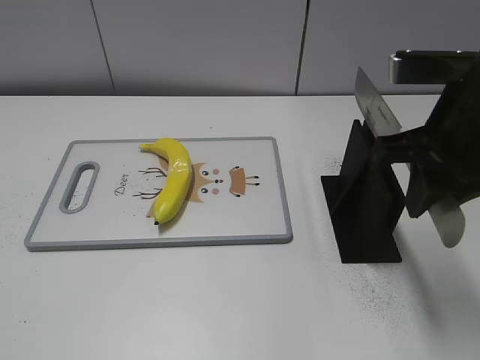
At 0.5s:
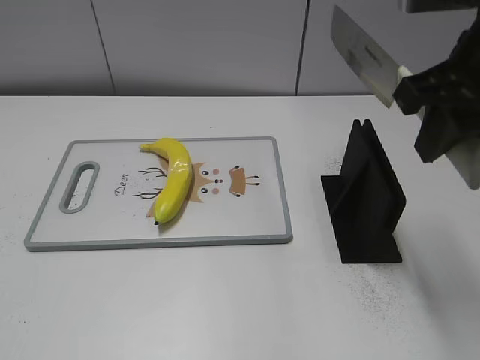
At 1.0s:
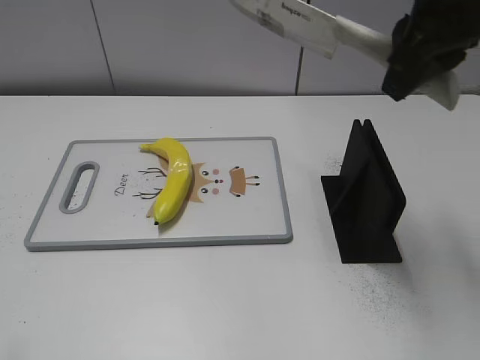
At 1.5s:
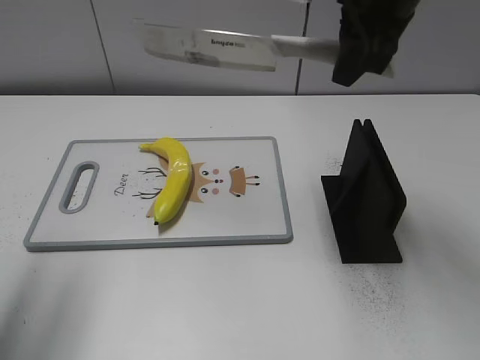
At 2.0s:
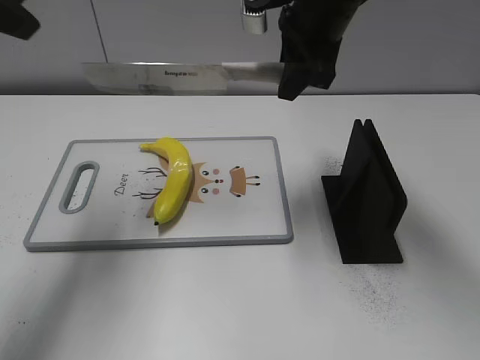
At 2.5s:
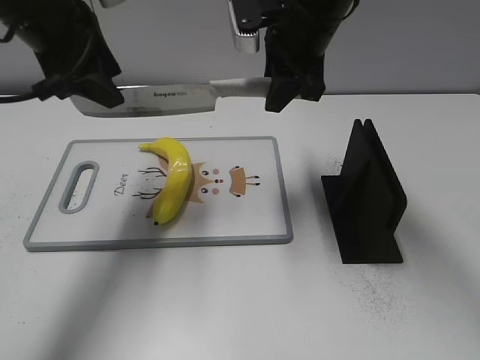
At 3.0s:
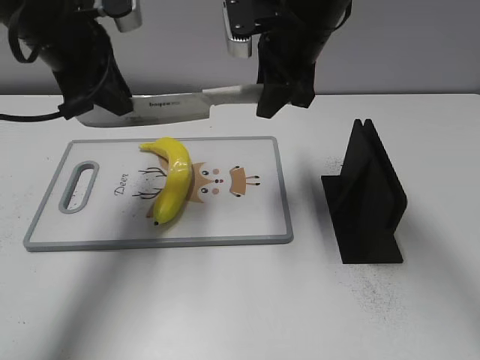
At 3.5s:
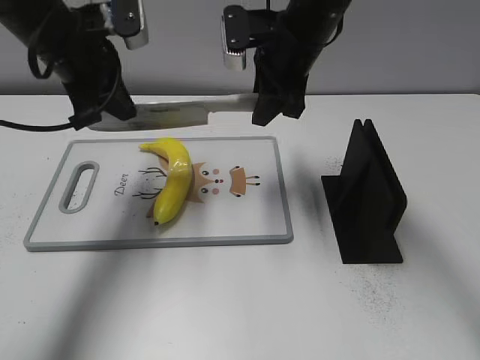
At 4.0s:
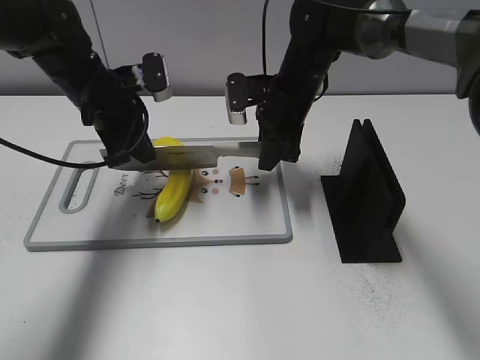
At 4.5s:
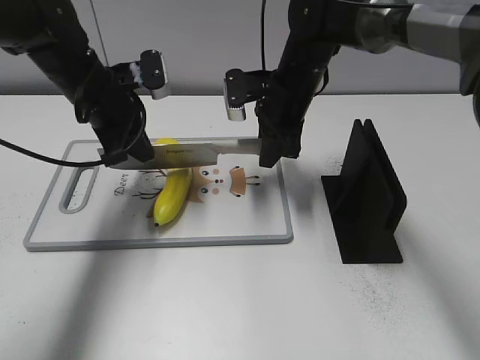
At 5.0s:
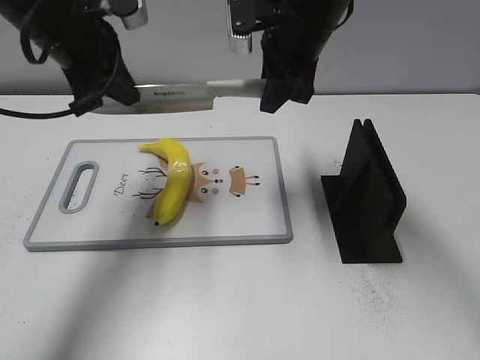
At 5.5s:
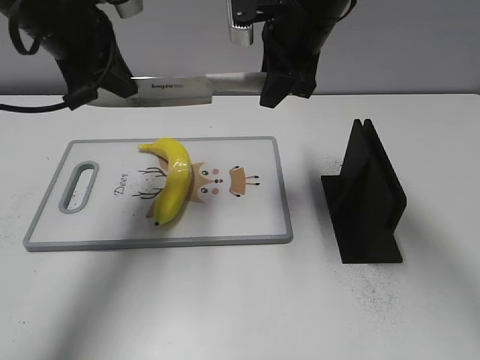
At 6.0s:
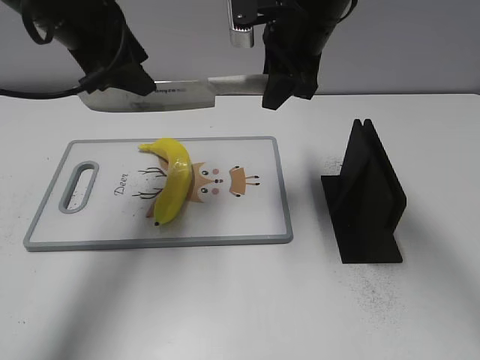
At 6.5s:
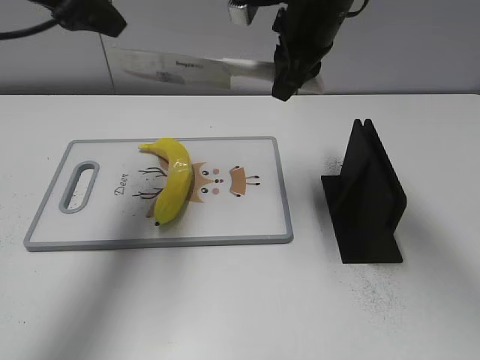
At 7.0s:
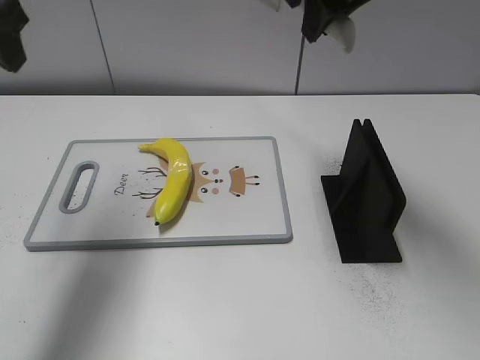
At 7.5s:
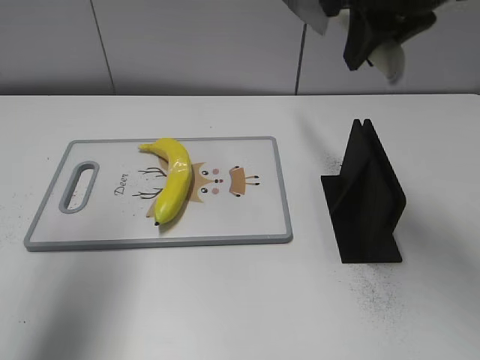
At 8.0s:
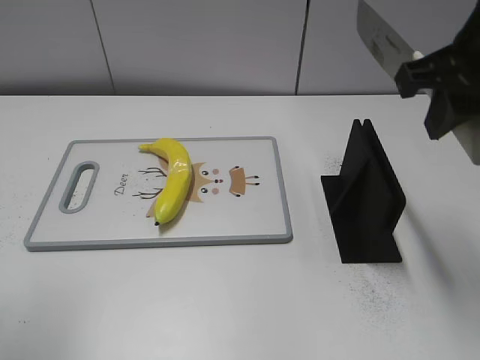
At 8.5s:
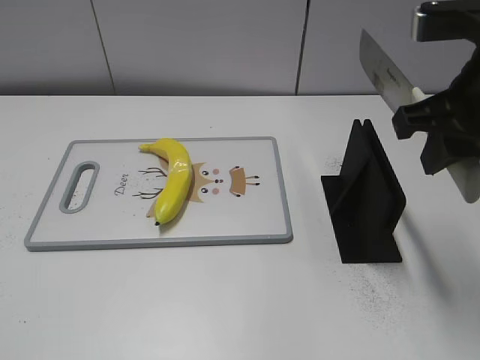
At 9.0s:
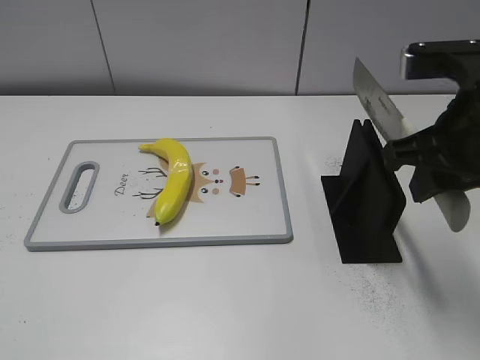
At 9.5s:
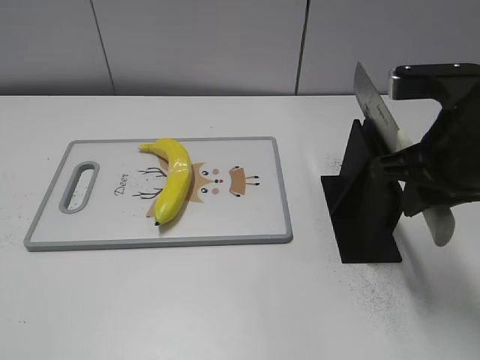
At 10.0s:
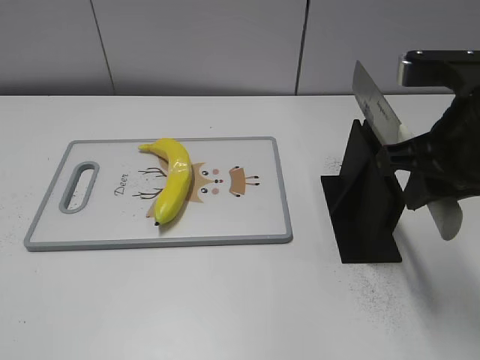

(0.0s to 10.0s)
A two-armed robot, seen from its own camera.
Task of the whole recording: cut plastic banana.
Step, 1.0s - 5.0s: Lift the knife with your right hand.
Step, 5.5s - 6.5s: Cut the banana with your right hand.
Step, 7.0s - 7.5s: Lift the knife with your right hand.
0.0s - 2.0s: The left gripper is displaced forward by roughly 30 cm. Meanwhile the right gripper goes about 20 cm forward and to the left.
2.0s - 4.0s: The left gripper heads downward, forward and to the right, covering some 25 cm, and closes. Meanwhile the right gripper shifts some 15 cm downward.
4.0s - 6.0s: Both grippers move upward, roughly 10 cm. The left gripper opens.
6.0s - 8.0s: The right gripper travels backward, to the right and upward by roughly 20 cm. The left gripper moves backward and to the left, some 25 cm.
8.0s - 10.0s: The right gripper travels downward by approximately 5 cm. The left gripper heads backward and downward, covering roughly 20 cm.

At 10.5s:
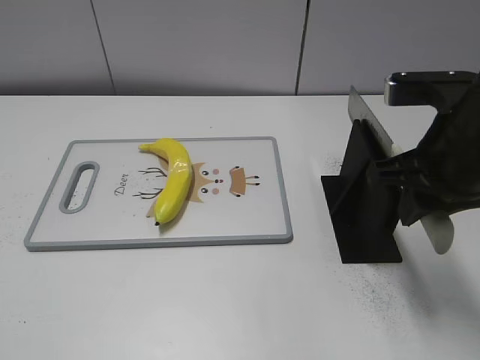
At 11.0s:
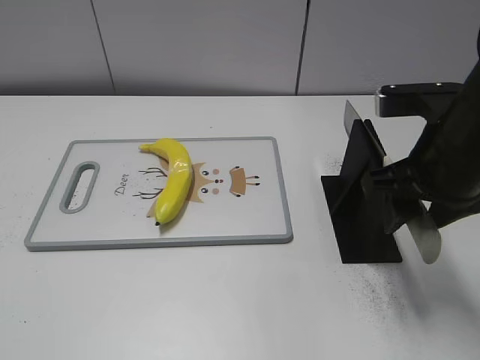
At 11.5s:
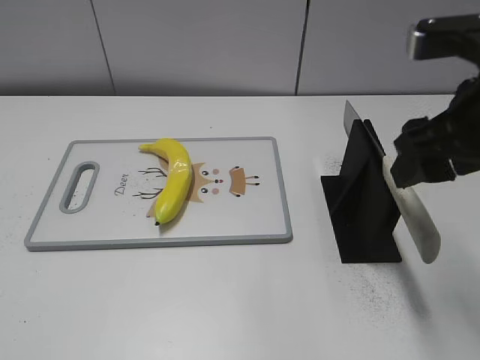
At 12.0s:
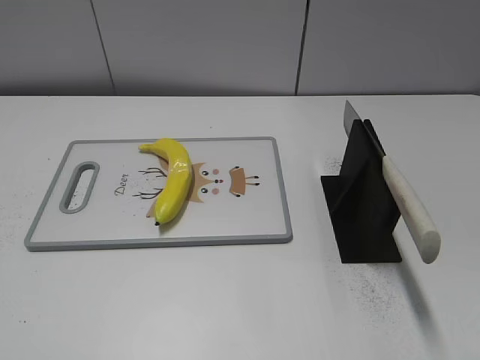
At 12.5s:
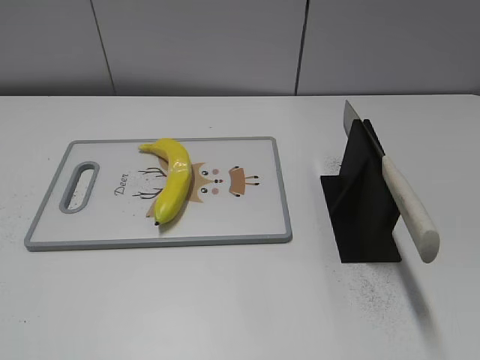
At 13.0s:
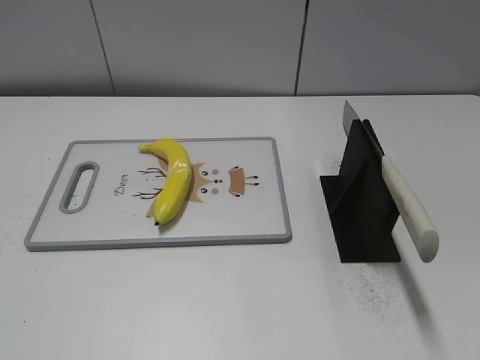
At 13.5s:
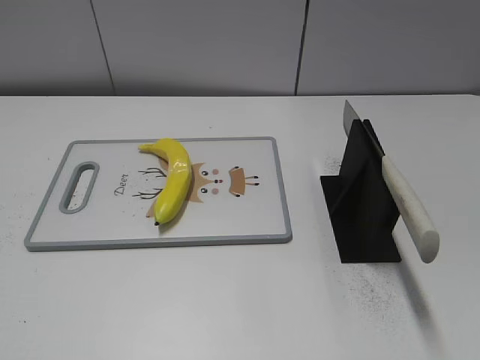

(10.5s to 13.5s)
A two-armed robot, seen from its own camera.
Task of the whole recording: cut plastic banana.
Step, 10.5s - 13.5s: Place the knife on the storage rack with your right hand.
10.5s - 12.0s: The right gripper shifts approximately 15 cm backward, upward and to the right, and opens up.

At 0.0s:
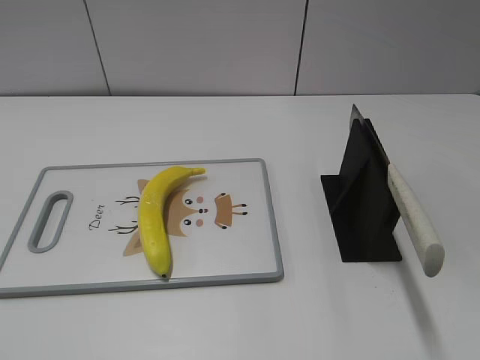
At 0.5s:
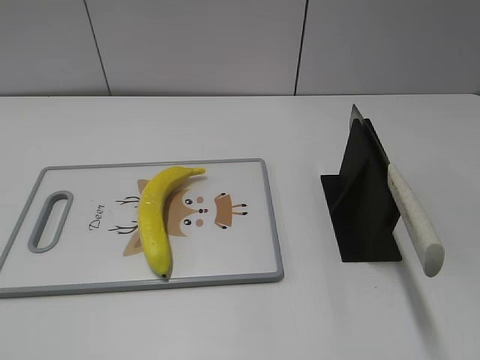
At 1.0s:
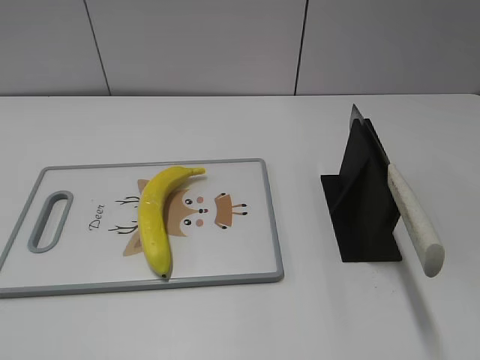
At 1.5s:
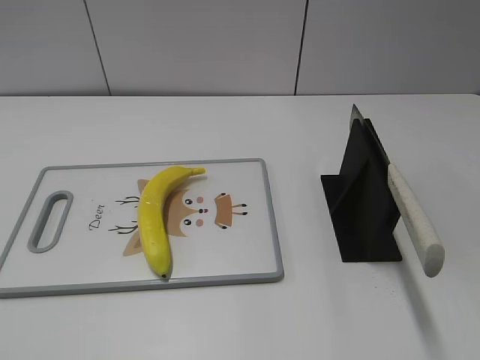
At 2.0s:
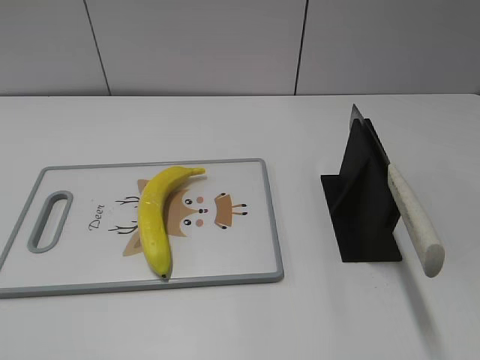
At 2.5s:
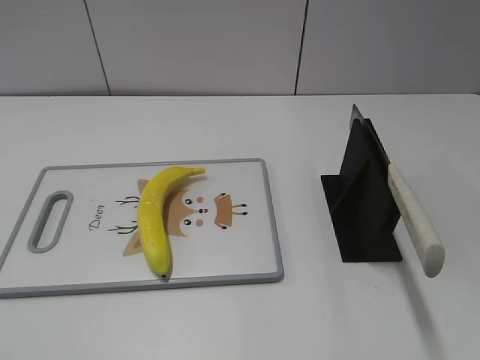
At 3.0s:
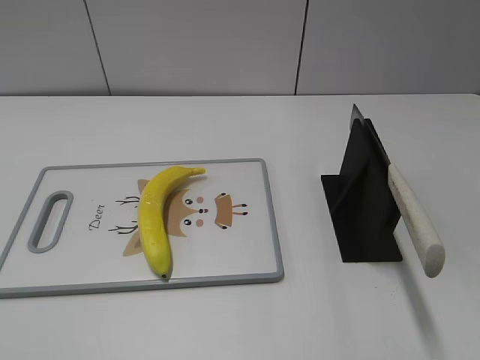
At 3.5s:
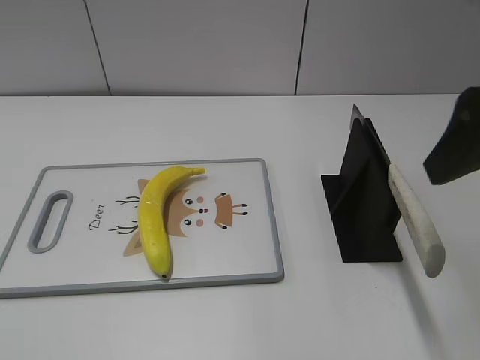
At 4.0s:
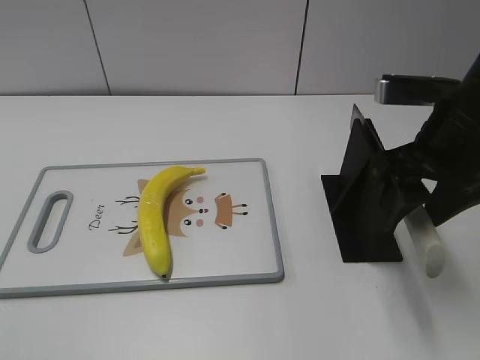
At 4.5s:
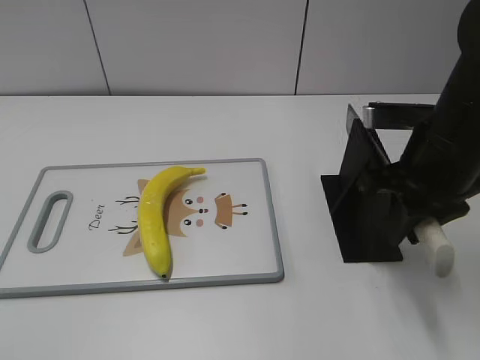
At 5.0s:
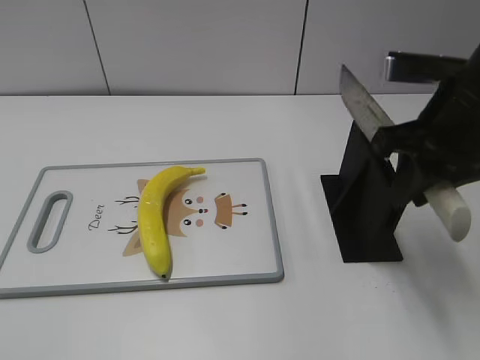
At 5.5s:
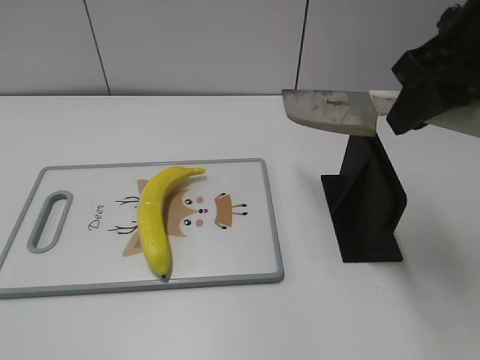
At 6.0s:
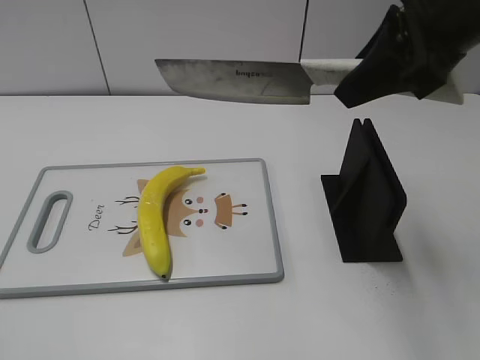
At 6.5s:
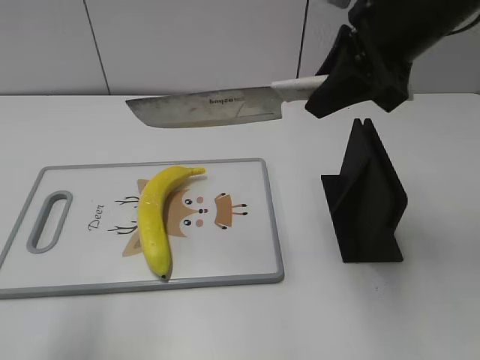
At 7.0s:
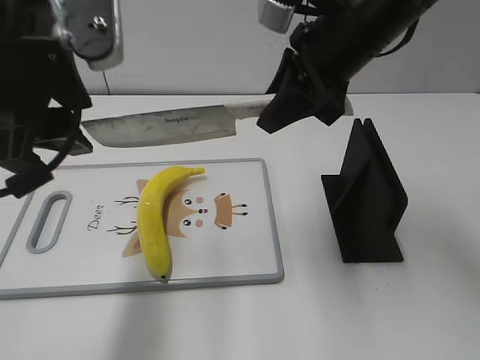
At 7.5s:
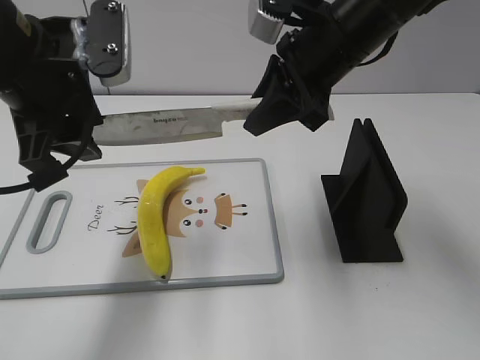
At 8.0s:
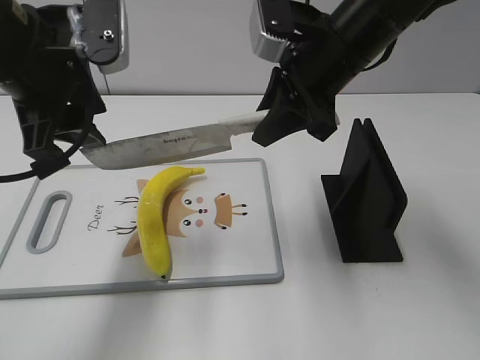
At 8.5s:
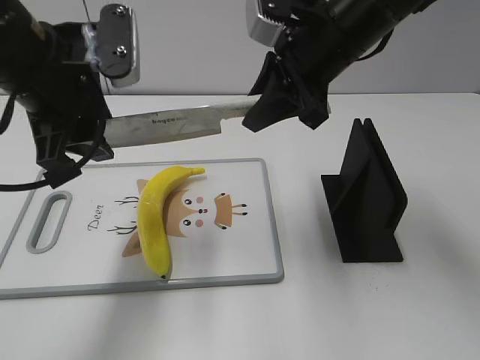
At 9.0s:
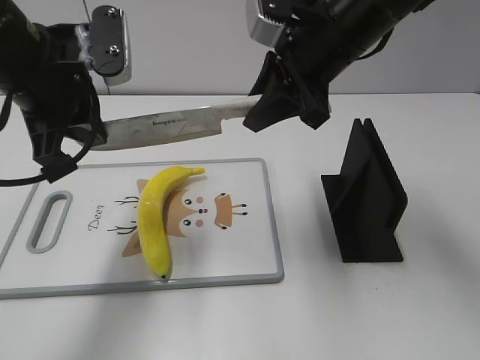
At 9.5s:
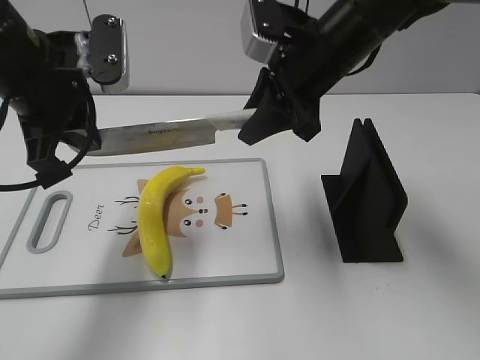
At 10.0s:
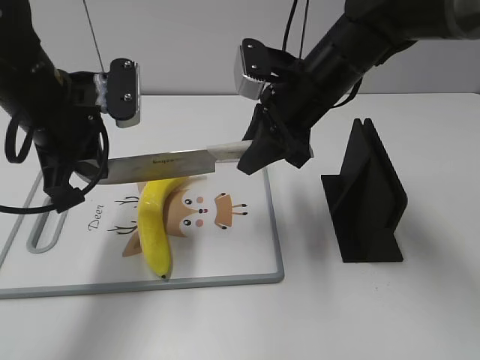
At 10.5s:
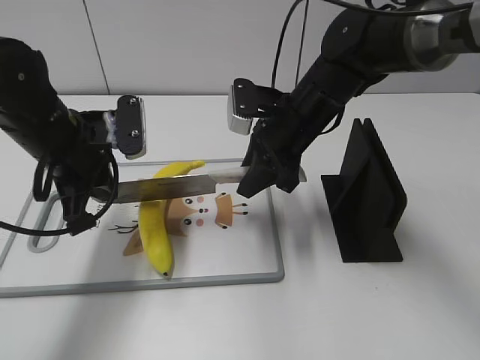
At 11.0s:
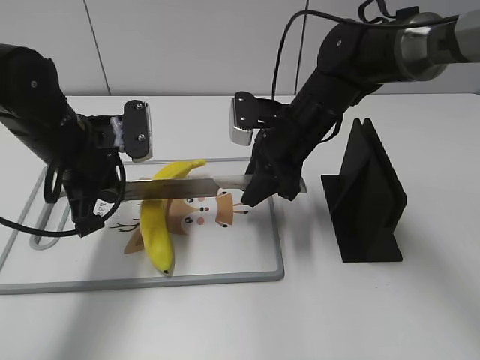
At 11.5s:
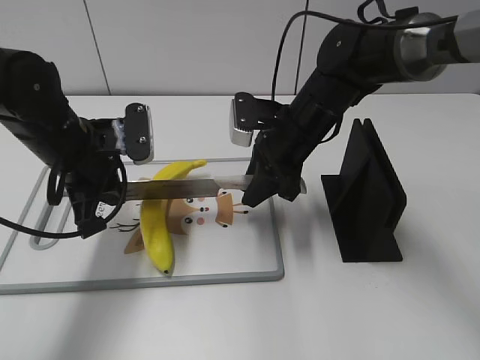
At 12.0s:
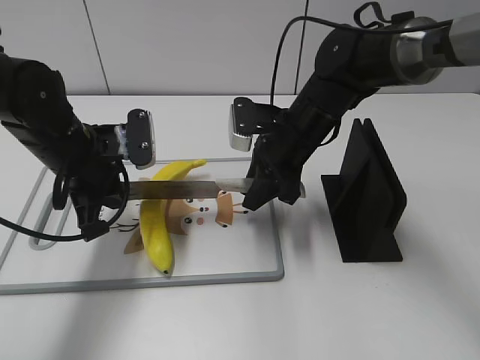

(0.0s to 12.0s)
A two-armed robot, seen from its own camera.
Task of the whole recording: cut plastic banana.
Step, 0.0s - 5.5s: Grab the knife handle with your right hand.
Step, 6.0s - 11.0s: Lift the knife with your right hand.
2.0s - 4.0s: The right gripper goes about 25 cm forward and to the left.
4.0s - 6.0s: The left gripper moves about 5 cm. The right gripper moves upward, approximately 10 cm, and closes its fingers.
6.0s - 8.0s: The left gripper moves forward and to the right, about 30 cm. Meanwhile the right gripper travels downward, forward and to the left by some 15 cm.
8.0s - 10.0s: Both grippers travel together downward, some 5 cm. The left gripper closes.
10.0s - 12.0s: Both grippers move downward, roughly 10 cm.
